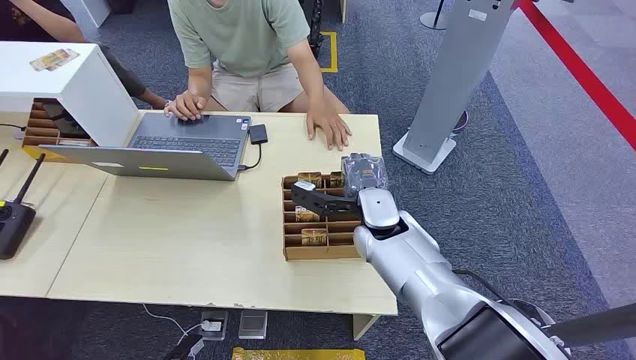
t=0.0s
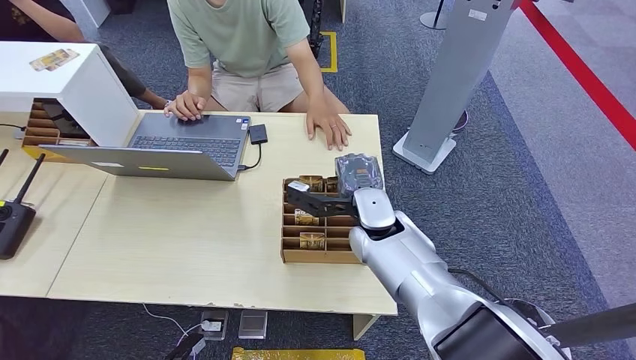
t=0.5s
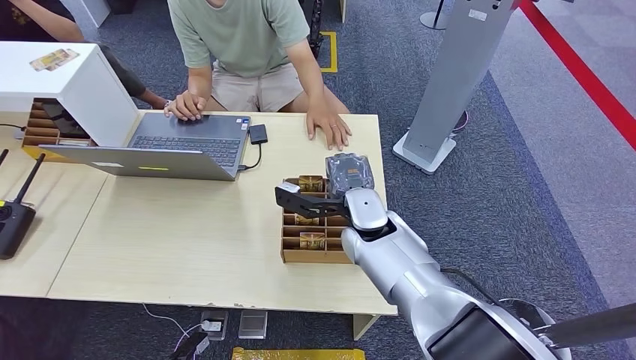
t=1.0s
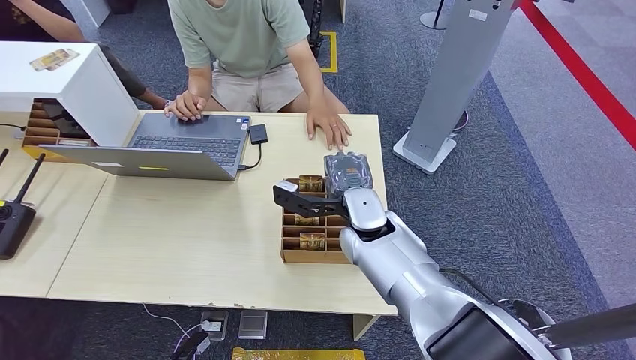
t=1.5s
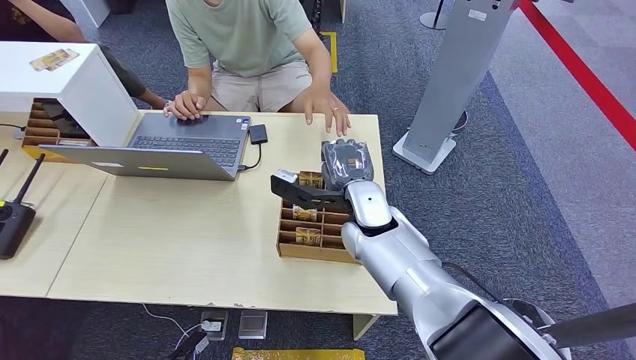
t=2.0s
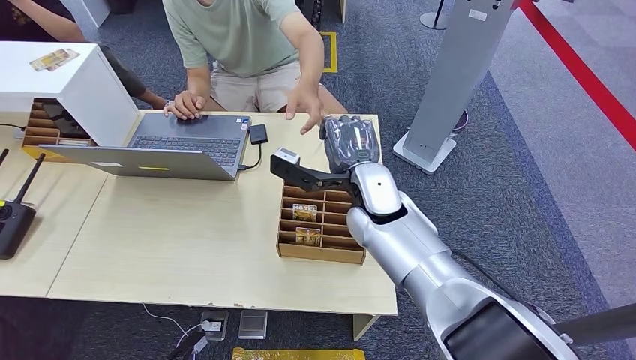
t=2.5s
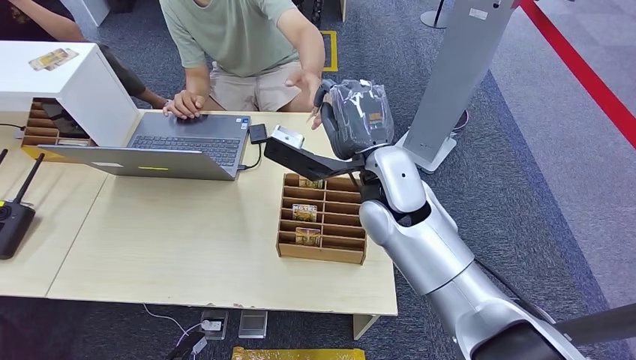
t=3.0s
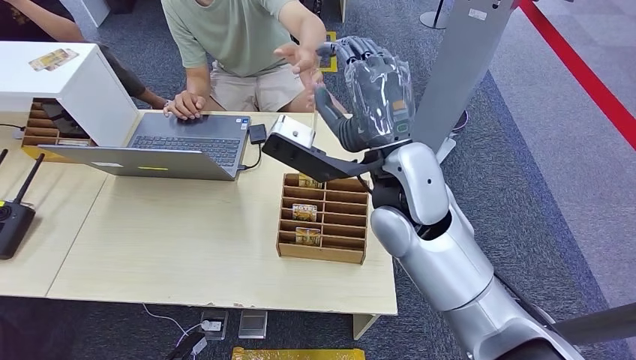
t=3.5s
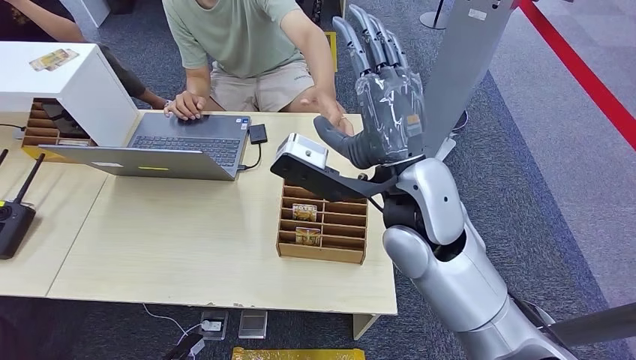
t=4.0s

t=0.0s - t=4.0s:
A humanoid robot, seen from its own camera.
Step, t=0.0s - t=2.0s: Pick up the key card from the card box.
Step, t=3.0s - t=4.0s: Hand the key card to the target.
t=2.0s - t=4.0s: The right hand heads upward and backward, covering roughly 15 cm.
